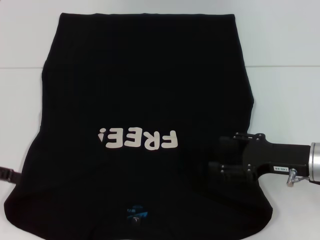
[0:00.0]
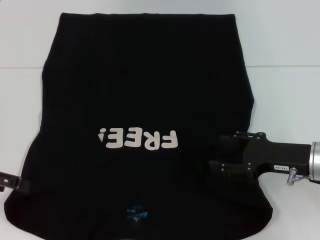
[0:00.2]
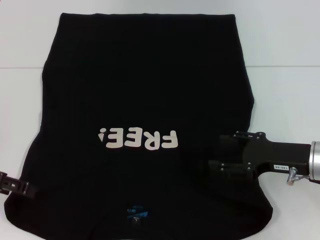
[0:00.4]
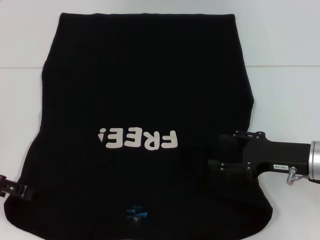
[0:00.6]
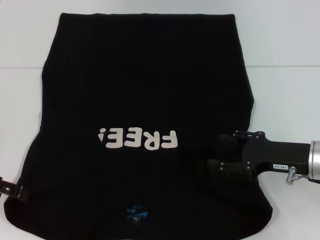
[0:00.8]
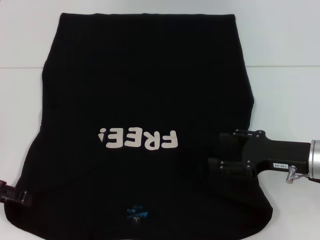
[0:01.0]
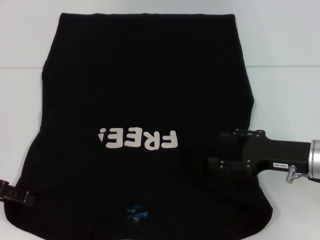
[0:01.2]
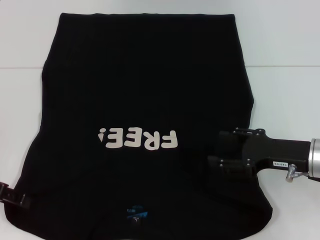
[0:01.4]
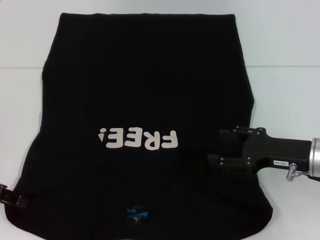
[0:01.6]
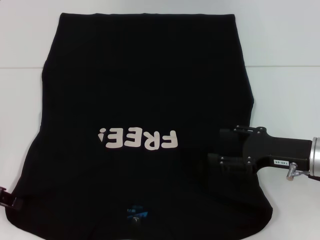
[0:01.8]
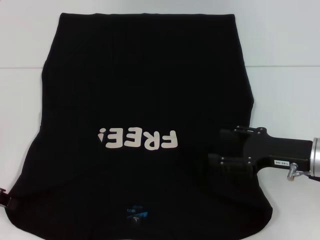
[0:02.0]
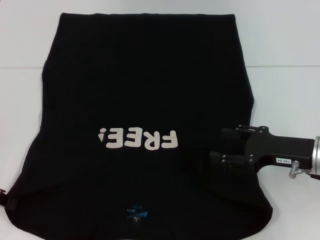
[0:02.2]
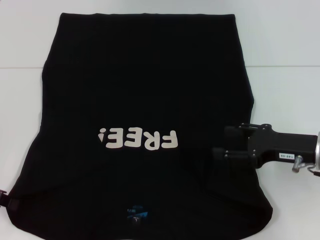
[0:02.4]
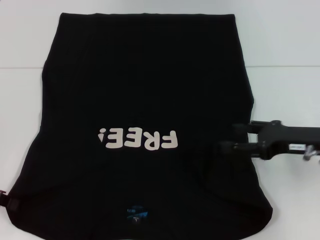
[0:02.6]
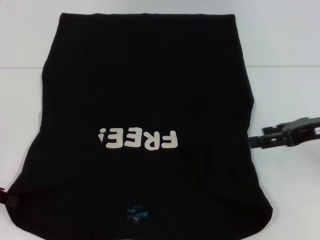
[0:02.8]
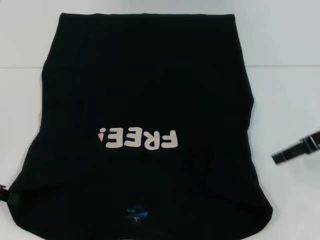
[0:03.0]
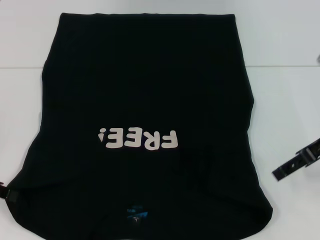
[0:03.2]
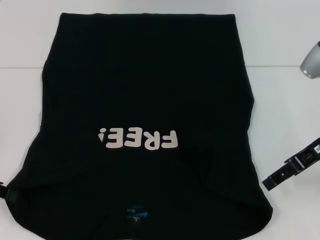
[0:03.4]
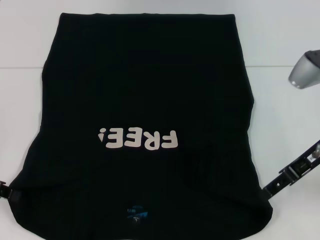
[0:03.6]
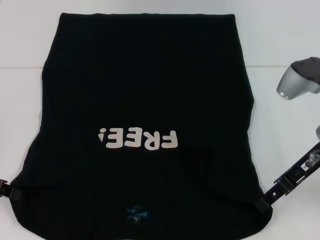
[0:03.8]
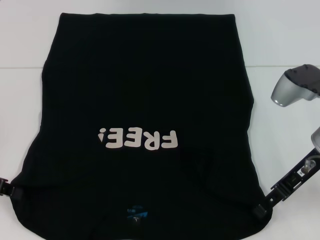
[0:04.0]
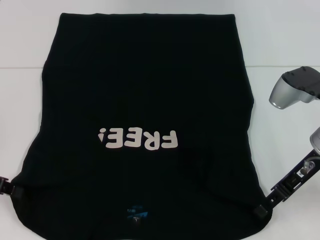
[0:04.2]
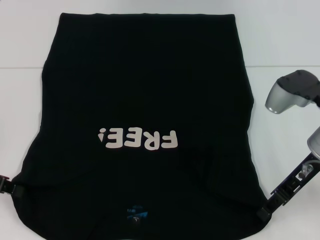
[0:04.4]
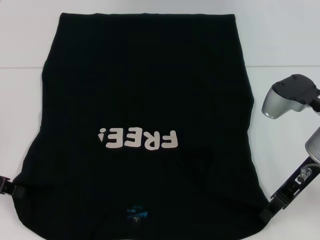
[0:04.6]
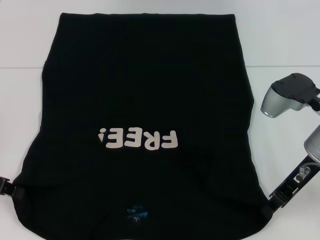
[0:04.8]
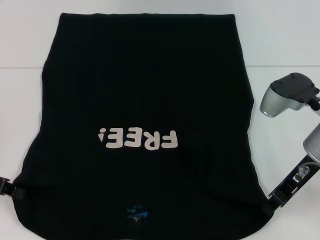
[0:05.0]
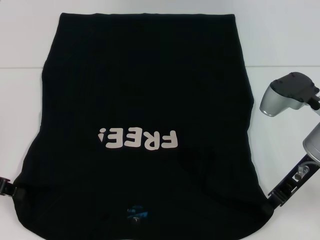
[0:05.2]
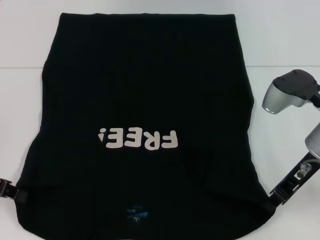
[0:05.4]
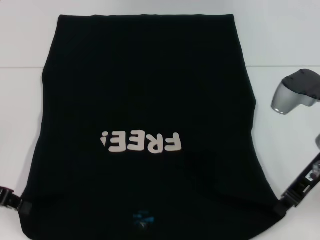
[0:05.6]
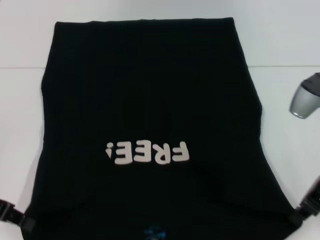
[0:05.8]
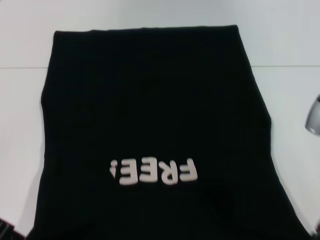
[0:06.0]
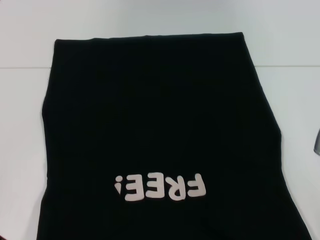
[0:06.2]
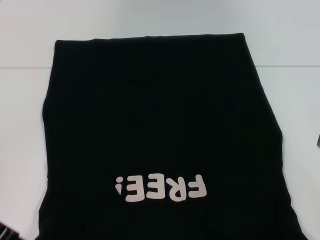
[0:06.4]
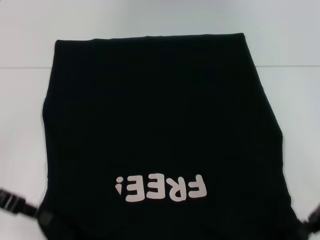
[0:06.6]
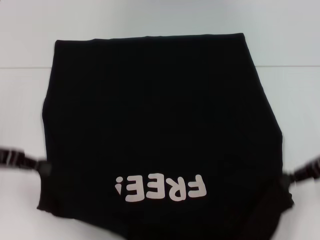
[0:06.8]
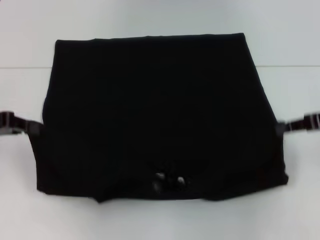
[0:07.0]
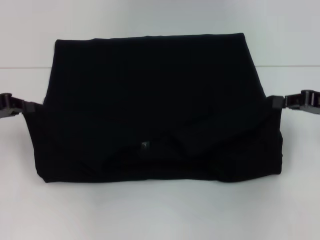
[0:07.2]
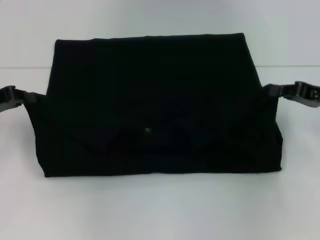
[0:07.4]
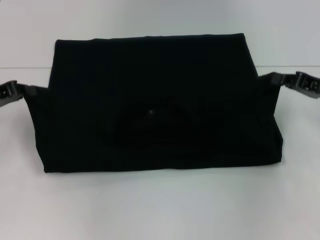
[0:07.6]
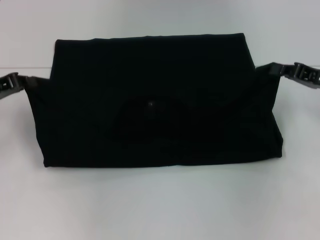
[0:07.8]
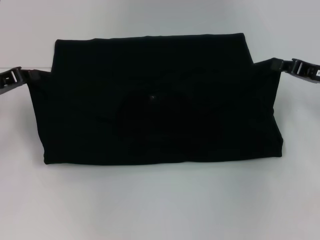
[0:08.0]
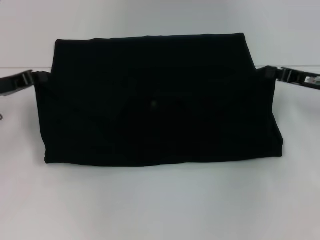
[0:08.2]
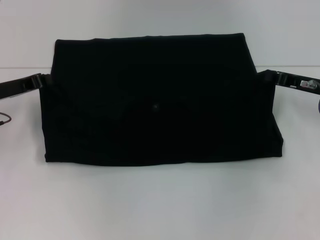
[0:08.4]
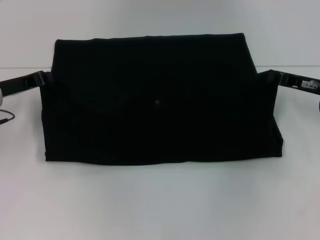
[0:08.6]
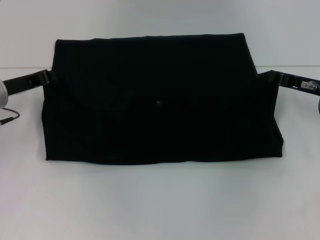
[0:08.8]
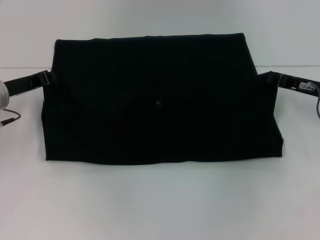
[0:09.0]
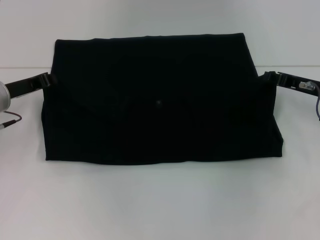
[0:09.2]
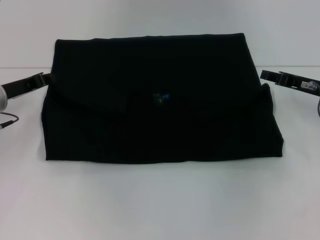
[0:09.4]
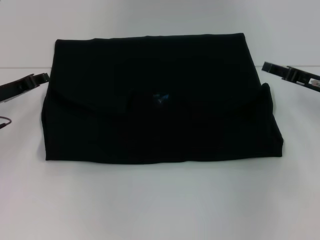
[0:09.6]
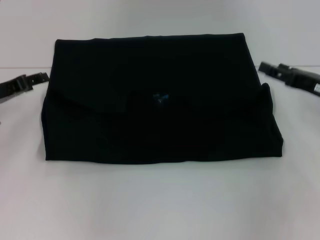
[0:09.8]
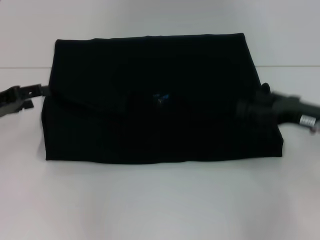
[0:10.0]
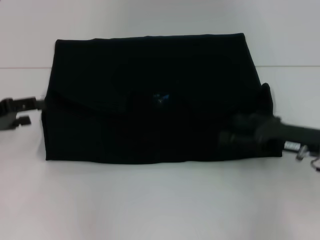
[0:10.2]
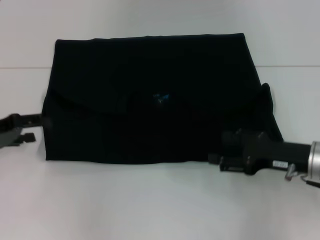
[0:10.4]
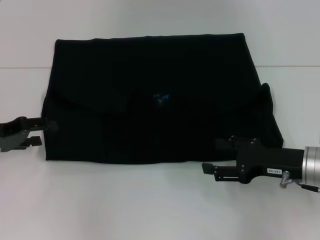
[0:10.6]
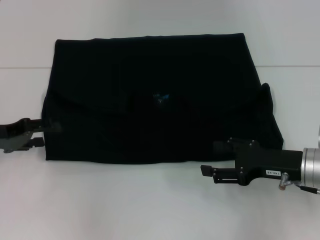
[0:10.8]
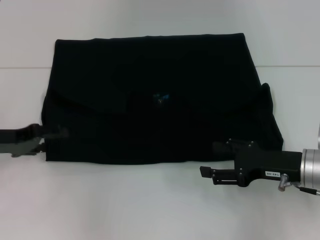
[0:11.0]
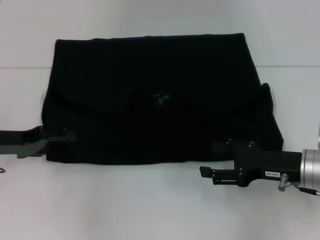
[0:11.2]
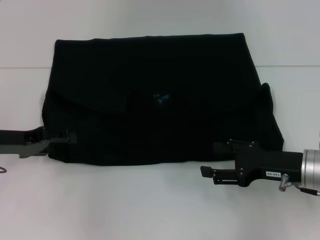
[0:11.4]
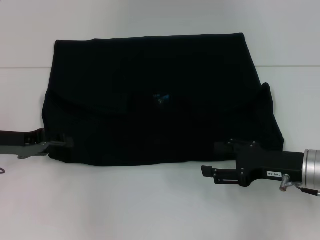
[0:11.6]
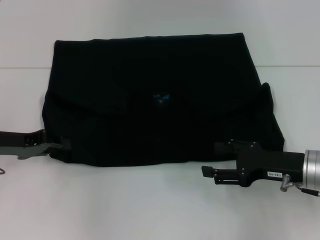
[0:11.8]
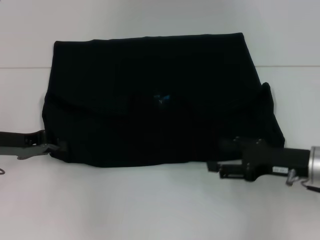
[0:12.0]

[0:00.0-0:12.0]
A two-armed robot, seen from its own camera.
Step, 0:00.0 to 0:05.8: Grab the bottom left corner with your left hand.
Step, 0:00.0 to 0:05.8: Grab the bottom right corner with your right hand.
Step, 0:06.0 to 0:09.8: Fold the clothes with your left hand.
Step, 0:06.0 to 0:09.8: Fold the clothes with your right hand.
0:00.0 to 0:01.6: The grippers stay close to where they were, moving slightly.
0:01.6 to 0:03.0: The right gripper shifts approximately 10 cm upward. The left gripper closes.
0:03.0 to 0:04.4: The right gripper goes approximately 5 cm to the left.
0:04.4 to 0:06.0: The right gripper shifts by some 5 cm, and closes its fingers.
0:06.0 to 0:07.6: The left gripper is displaced forward by roughly 10 cm, while the right gripper goes some 10 cm forward and to the right.
0:07.6 to 0:09.0: The left gripper travels to the right by roughly 5 cm.
0:09.0 to 0:10.4: The right gripper is displaced backward by some 10 cm, and opens; the left gripper heads backward and to the left, covering some 10 cm, and opens its fingers.
0:10.4 to 0:12.0: The left gripper closes.

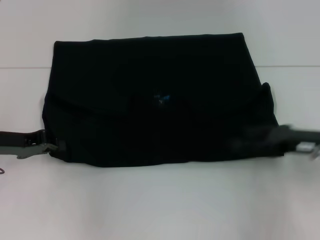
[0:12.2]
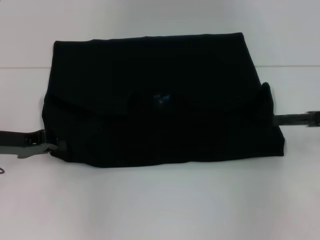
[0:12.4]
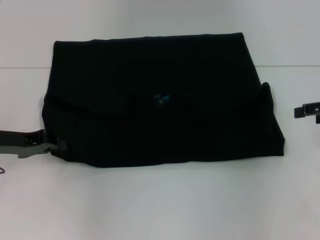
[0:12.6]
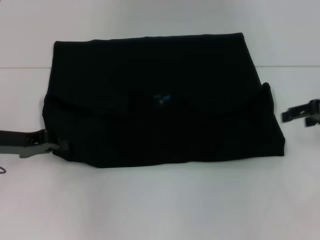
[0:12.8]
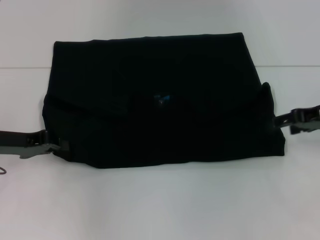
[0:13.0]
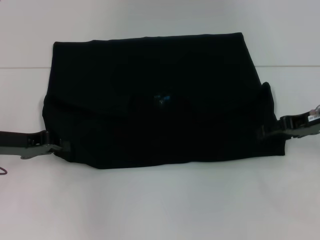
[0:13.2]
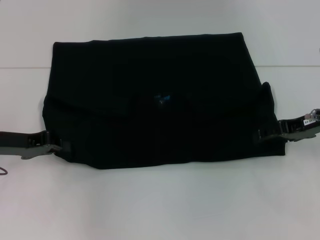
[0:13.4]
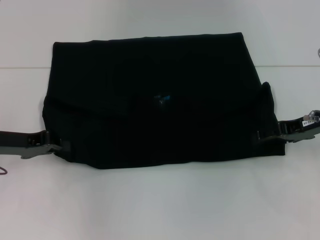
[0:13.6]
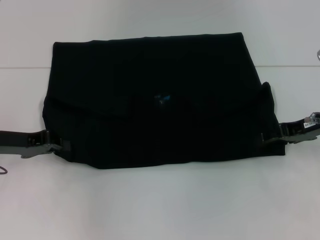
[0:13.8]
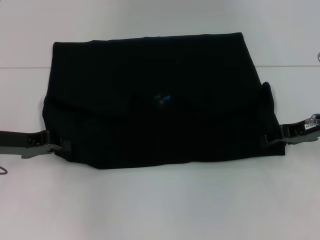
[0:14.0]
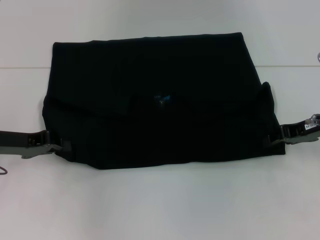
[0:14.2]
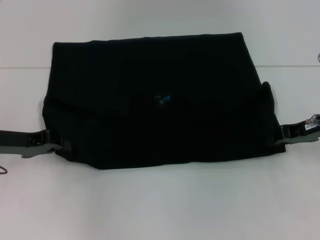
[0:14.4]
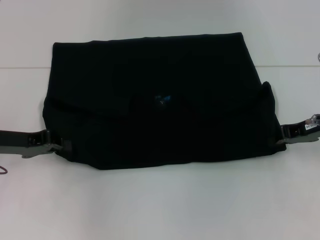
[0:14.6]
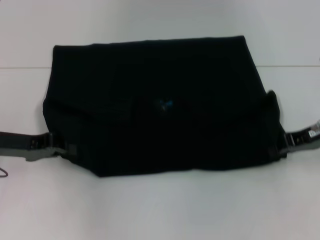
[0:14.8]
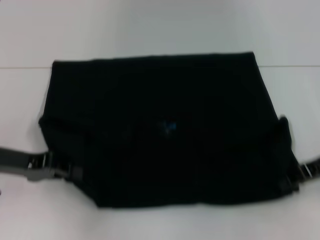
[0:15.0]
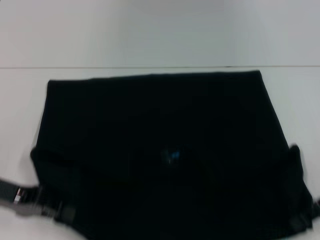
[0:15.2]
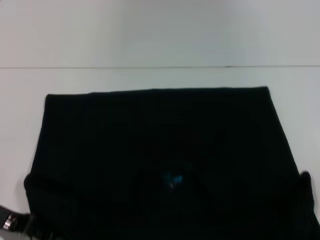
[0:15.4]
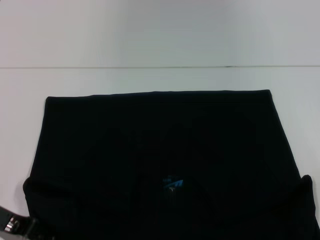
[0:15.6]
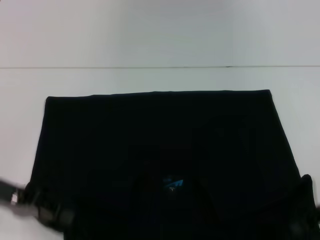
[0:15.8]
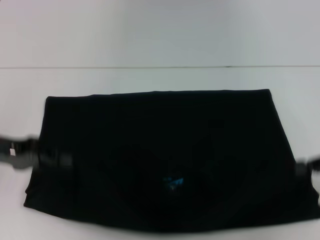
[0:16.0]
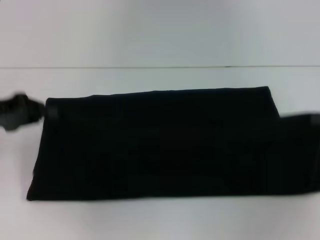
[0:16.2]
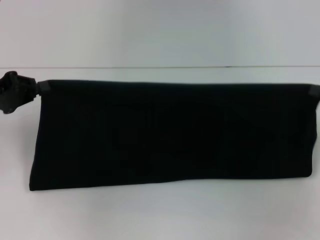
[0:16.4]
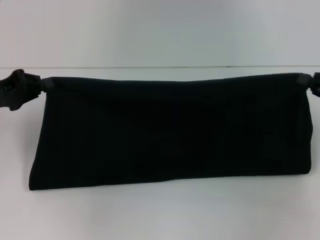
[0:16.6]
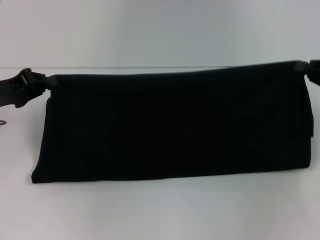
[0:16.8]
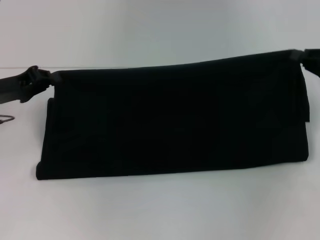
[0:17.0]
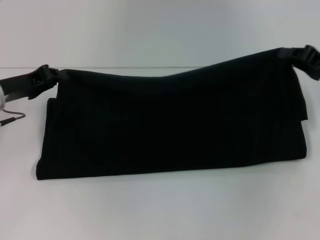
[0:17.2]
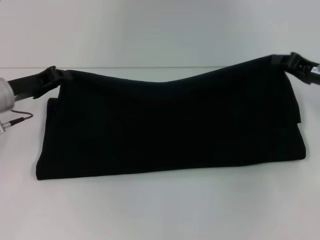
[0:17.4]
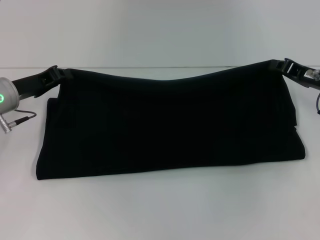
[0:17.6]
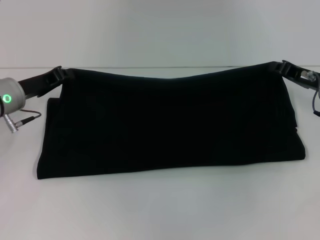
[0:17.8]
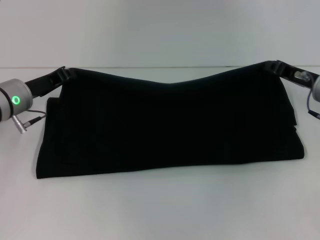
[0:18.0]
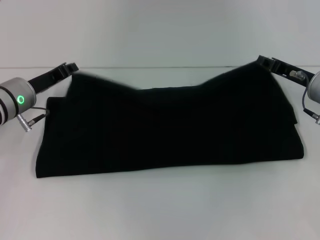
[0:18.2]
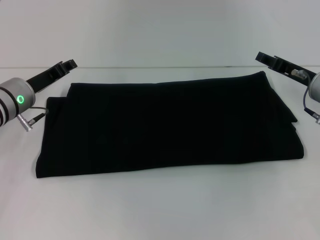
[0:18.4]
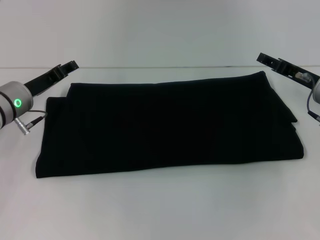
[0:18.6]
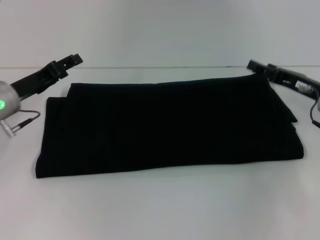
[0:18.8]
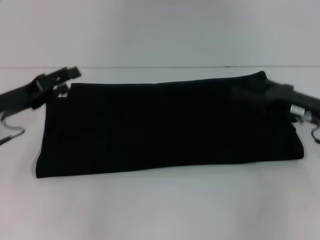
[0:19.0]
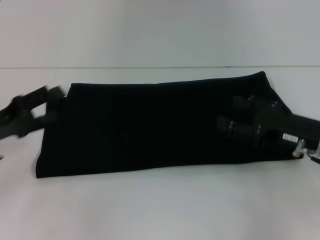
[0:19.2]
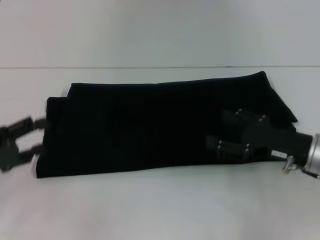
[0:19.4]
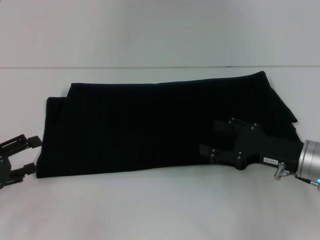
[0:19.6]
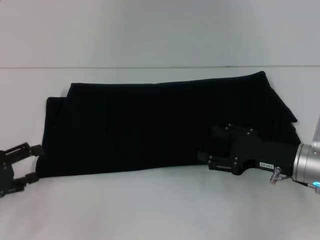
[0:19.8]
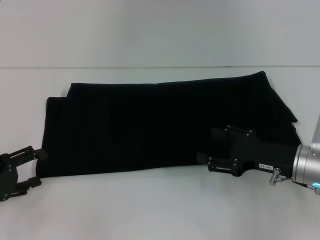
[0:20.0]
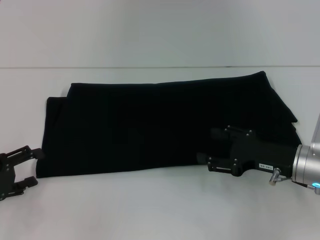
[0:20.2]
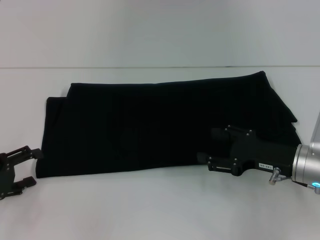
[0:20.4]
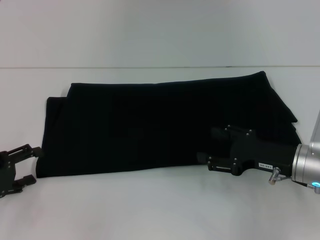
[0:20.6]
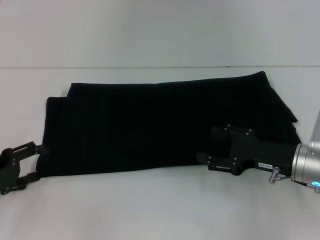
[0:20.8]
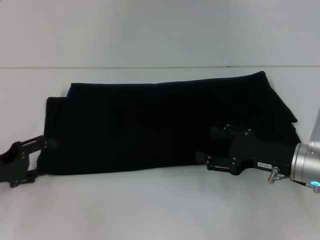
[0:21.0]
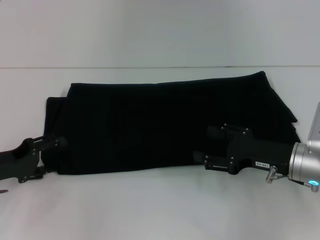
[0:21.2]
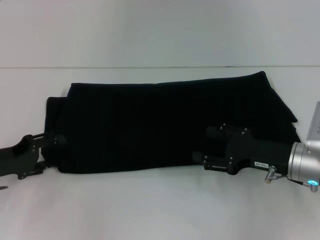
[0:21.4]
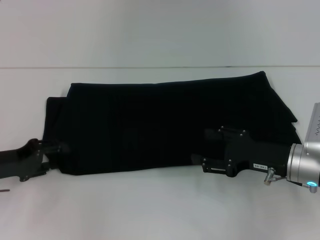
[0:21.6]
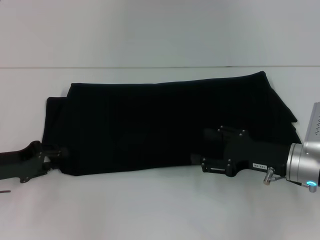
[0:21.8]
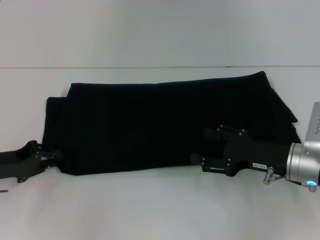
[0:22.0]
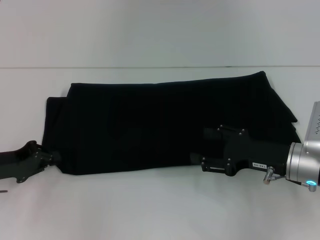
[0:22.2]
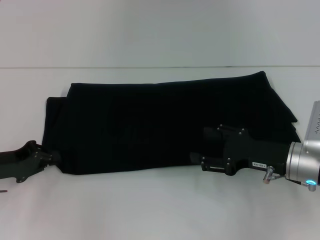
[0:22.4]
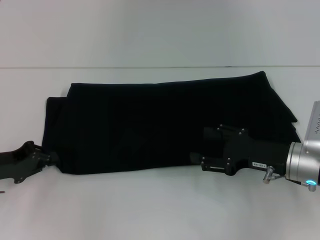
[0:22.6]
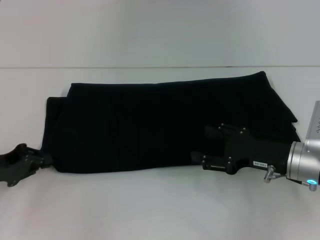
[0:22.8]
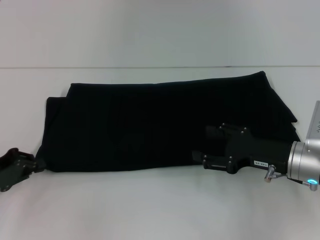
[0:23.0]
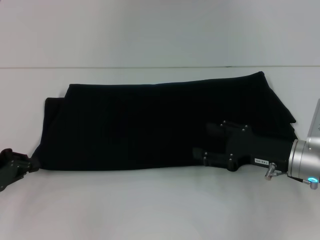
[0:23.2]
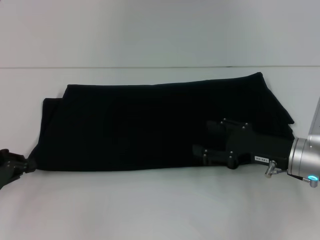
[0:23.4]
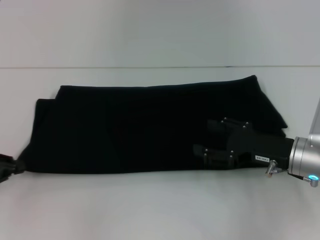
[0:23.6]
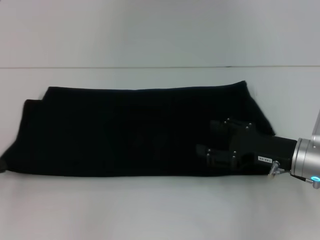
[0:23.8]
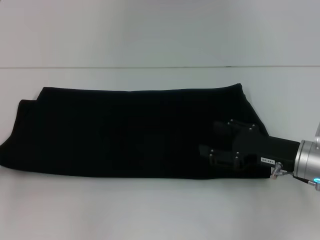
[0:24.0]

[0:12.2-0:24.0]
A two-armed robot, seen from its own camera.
Step, 0:12.2 to 0:15.0: Pull the clothes with your right hand.
Step, 0:15.2 to 0:19.4: Fold the clothes with your right hand.
0:12.2 to 0:13.6: The right gripper goes about 5 cm forward.
0:13.6 to 0:15.2: The two grippers go roughly 5 cm backward. The right gripper closes its fingers.
0:15.2 to 0:16.6: The right gripper heads to the right, covering approximately 5 cm. The left gripper heads forward, covering approximately 5 cm.
0:16.6 to 0:18.2: The right gripper heads to the left and forward, covering approximately 10 cm; the left gripper is displaced to the right by about 10 cm.
0:18.2 to 0:19.6: The right gripper moves backward, approximately 10 cm, and opens, while the left gripper travels backward and to the left by roughly 20 cm, and opens its fingers.
0:19.6 to 0:21.0: The grippers make only small movements.
0:21.0 to 0:22.6: The left gripper closes.
0:22.6 to 0:24.0: The left gripper moves to the left, some 10 cm.
